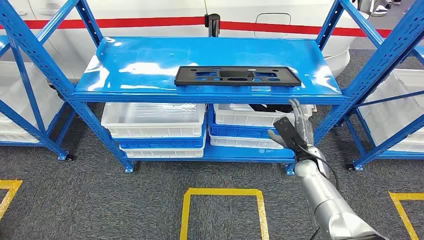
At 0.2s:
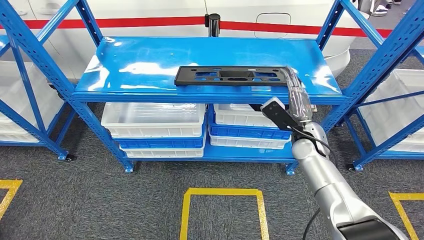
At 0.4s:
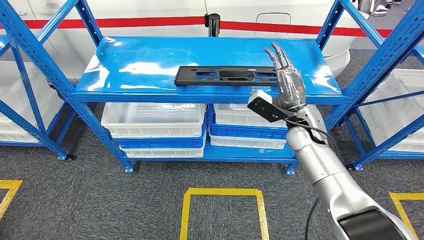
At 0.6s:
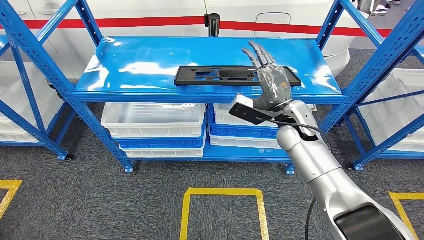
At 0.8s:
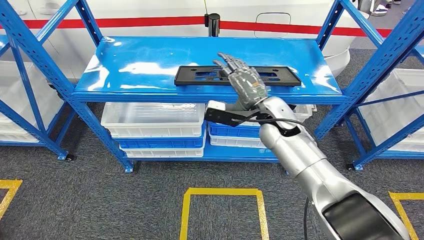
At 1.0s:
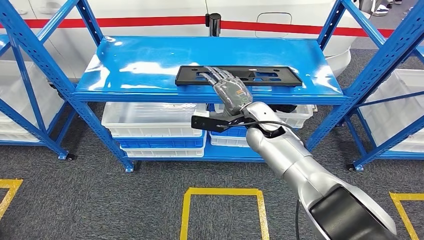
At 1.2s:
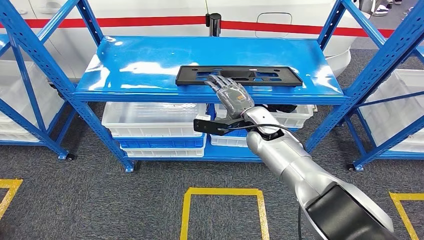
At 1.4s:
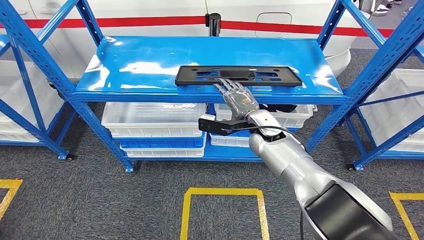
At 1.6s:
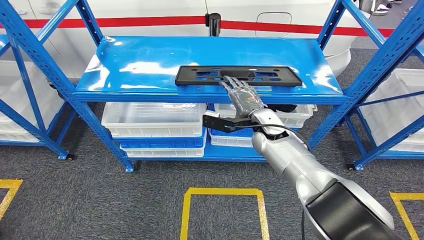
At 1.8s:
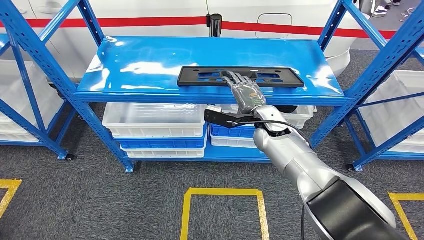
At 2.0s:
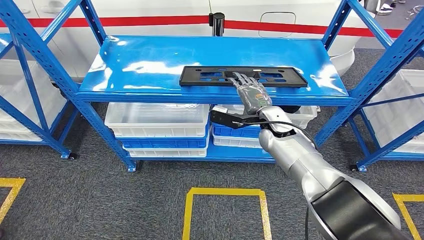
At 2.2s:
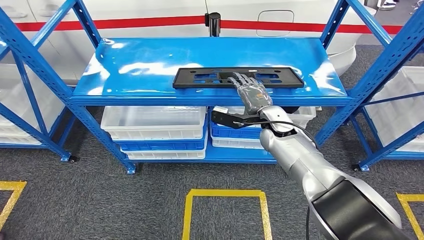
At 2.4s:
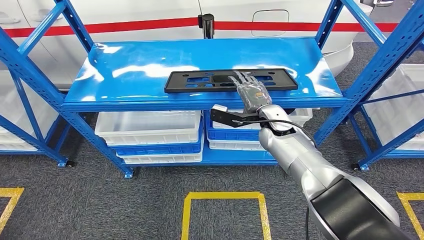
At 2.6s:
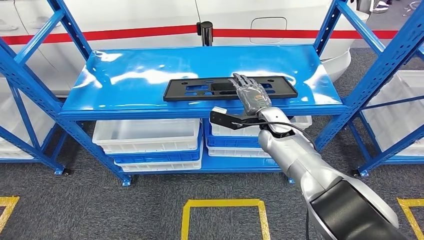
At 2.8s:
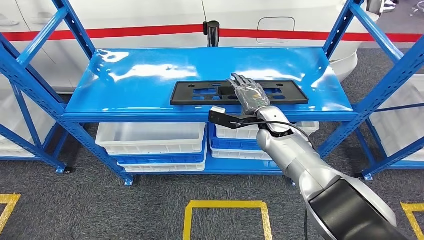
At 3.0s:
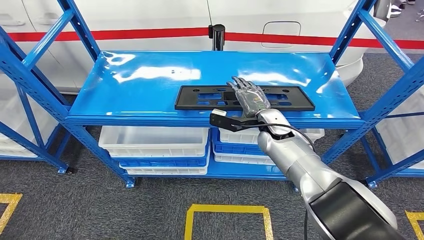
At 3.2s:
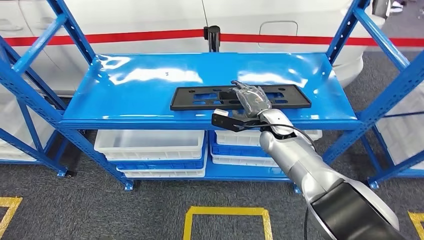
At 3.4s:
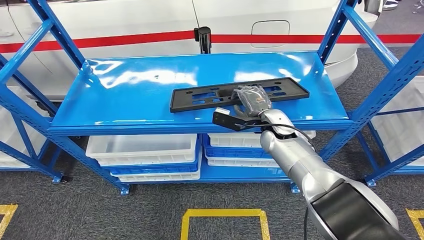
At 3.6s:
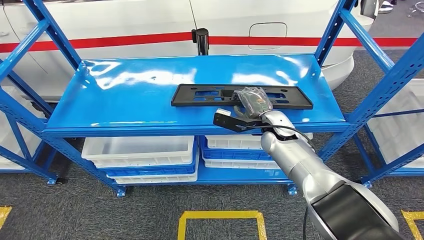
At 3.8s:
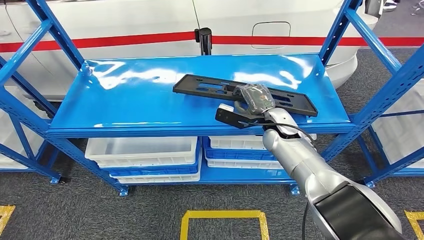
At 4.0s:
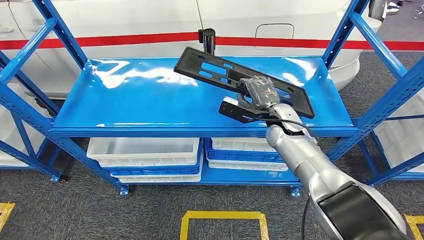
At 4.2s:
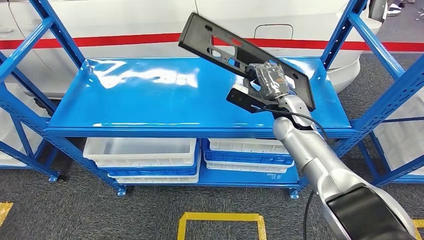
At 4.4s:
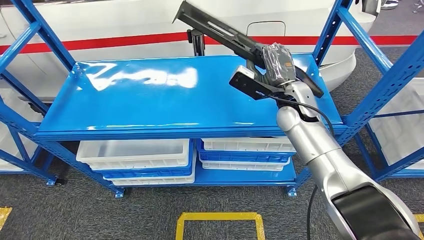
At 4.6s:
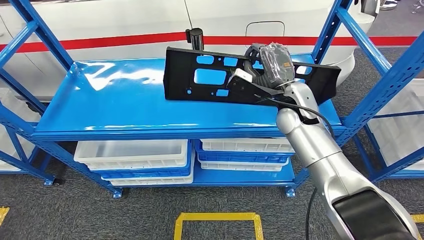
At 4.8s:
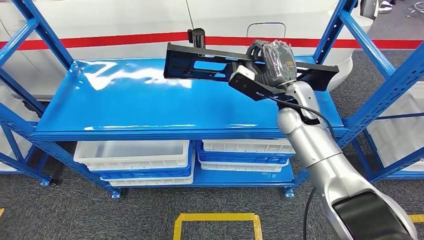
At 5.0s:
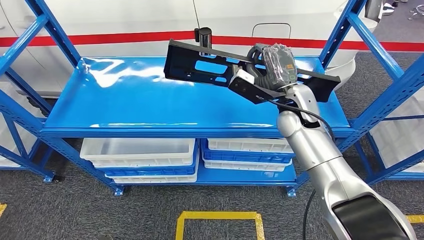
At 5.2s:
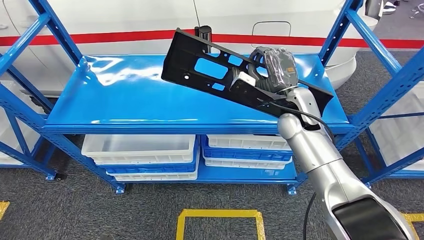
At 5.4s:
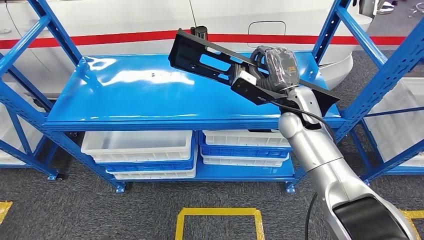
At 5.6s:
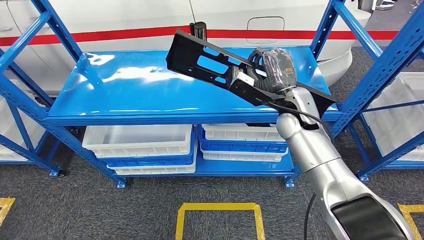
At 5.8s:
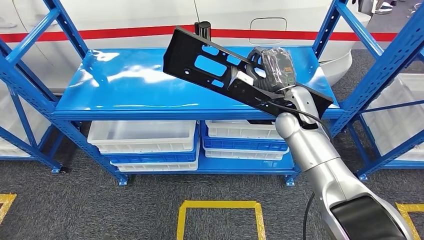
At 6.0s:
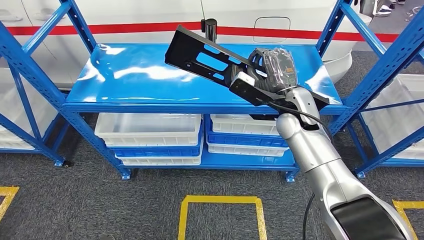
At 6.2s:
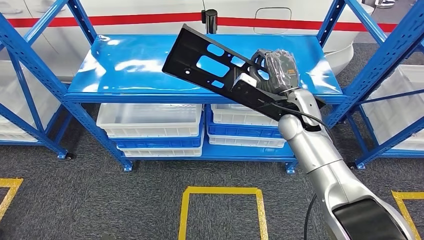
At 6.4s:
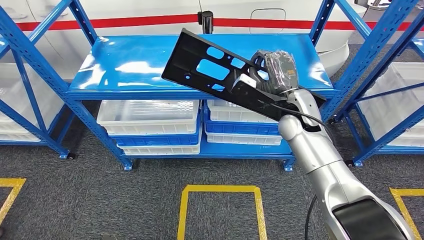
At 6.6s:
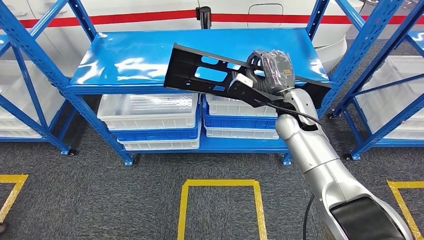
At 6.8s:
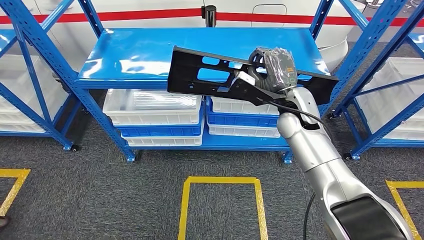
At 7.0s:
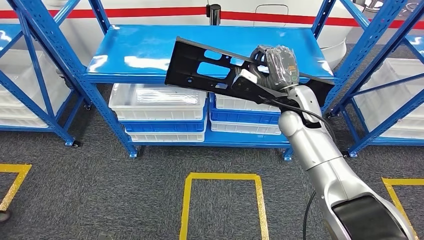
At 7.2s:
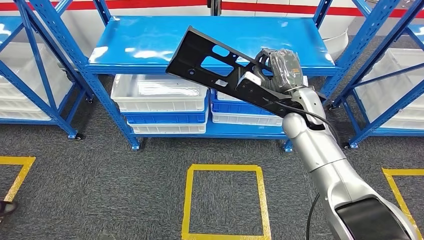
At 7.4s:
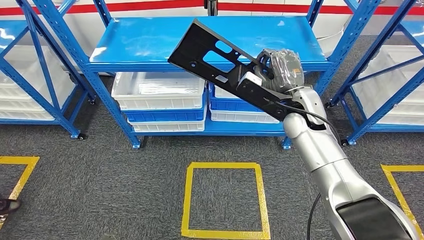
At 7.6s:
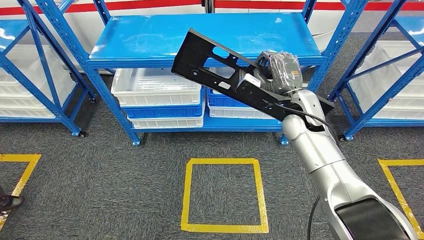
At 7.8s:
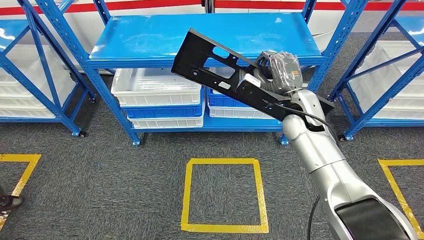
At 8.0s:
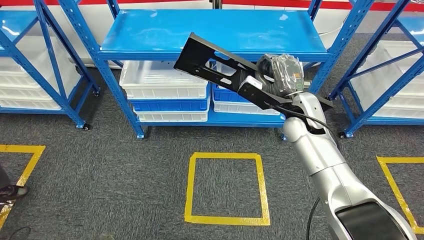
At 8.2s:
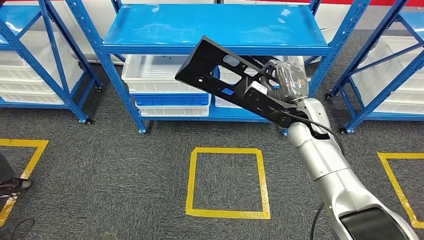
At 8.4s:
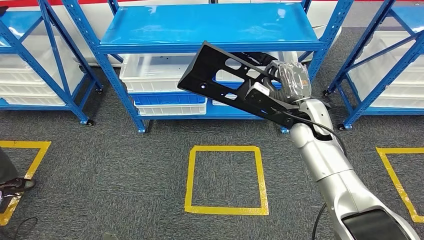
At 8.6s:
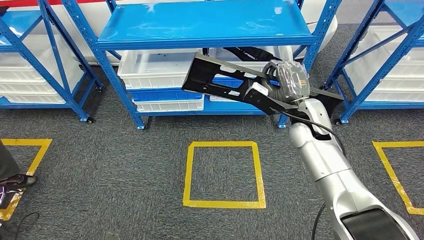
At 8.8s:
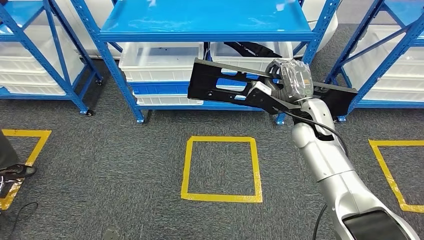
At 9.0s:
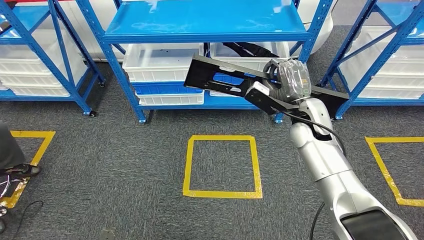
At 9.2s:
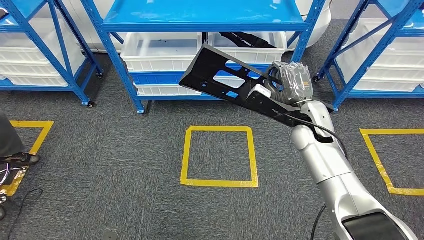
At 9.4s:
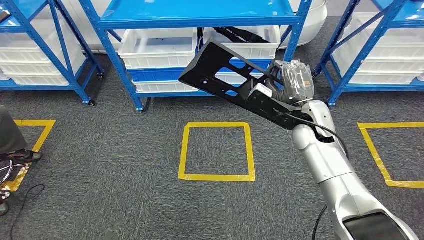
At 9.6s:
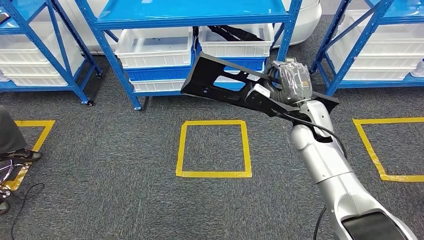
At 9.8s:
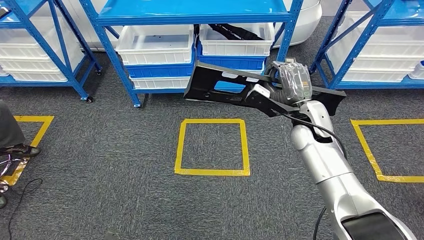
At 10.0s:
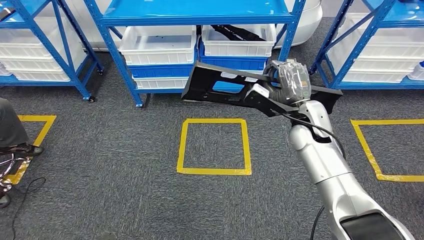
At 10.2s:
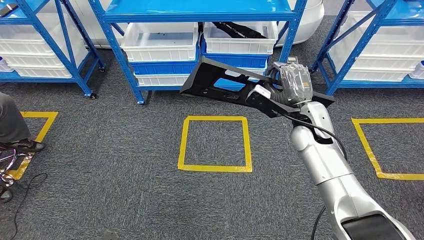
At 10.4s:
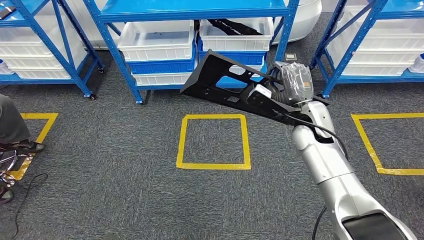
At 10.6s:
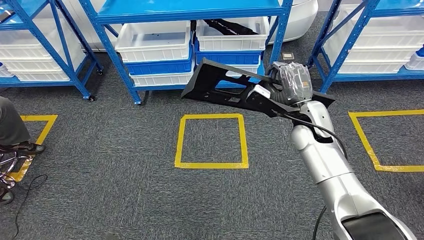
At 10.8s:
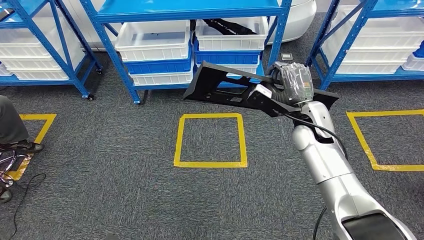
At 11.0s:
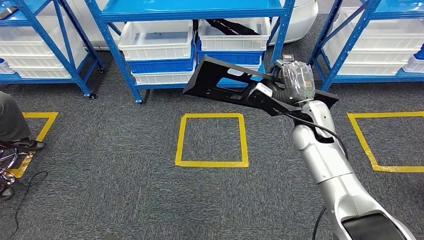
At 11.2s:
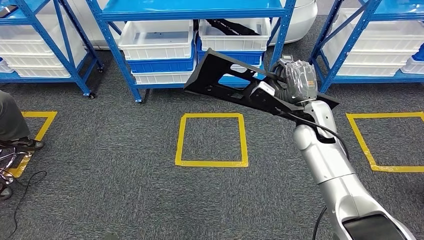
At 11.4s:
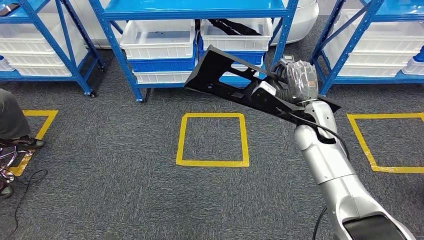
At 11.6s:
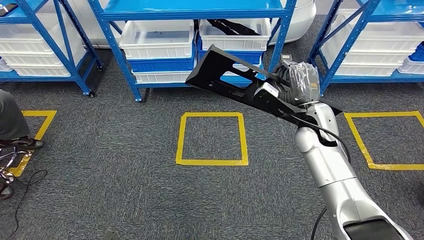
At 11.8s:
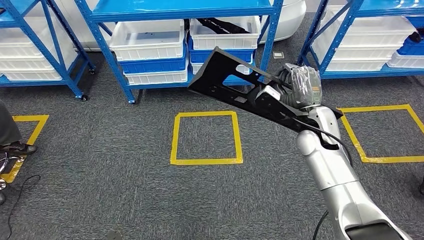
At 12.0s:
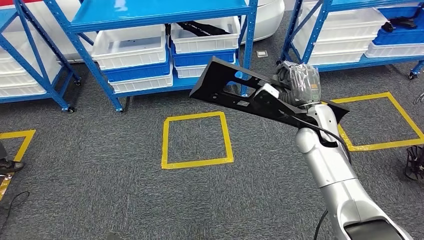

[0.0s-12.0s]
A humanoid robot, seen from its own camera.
Step, 0.0s to 4.8s: Pick up the large material from the shelf.

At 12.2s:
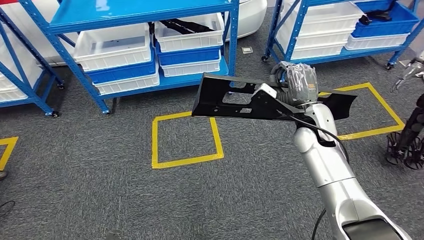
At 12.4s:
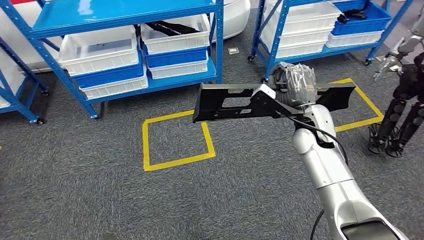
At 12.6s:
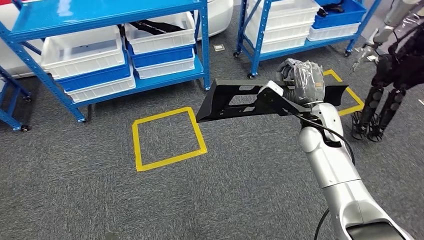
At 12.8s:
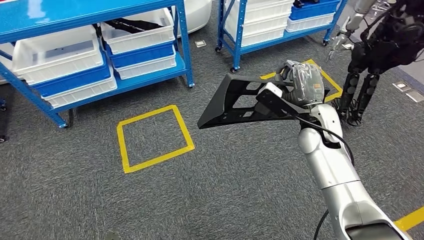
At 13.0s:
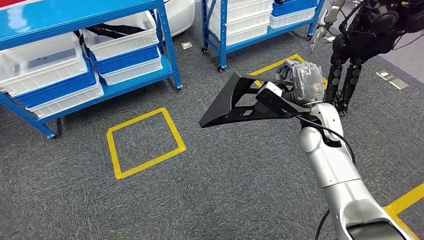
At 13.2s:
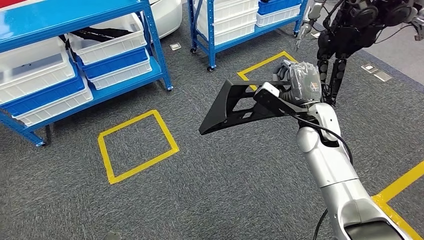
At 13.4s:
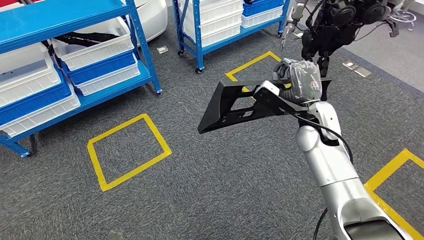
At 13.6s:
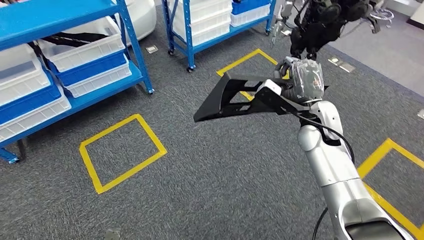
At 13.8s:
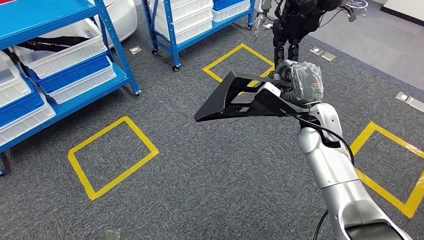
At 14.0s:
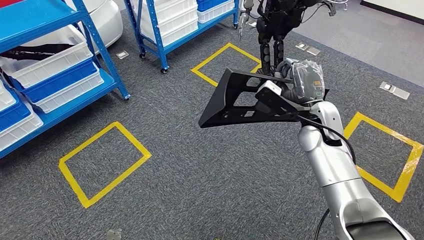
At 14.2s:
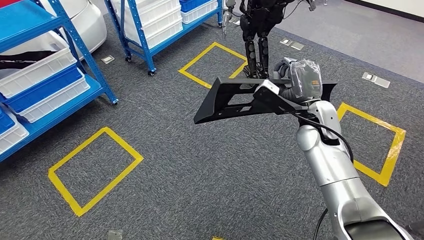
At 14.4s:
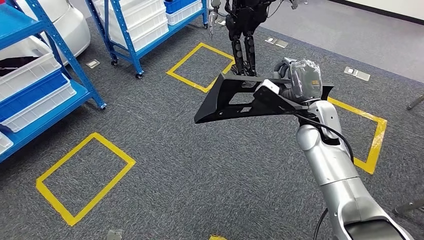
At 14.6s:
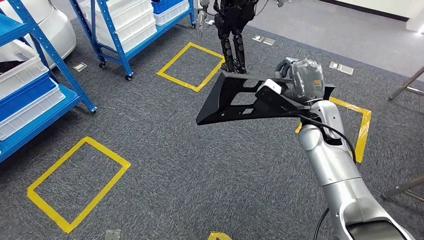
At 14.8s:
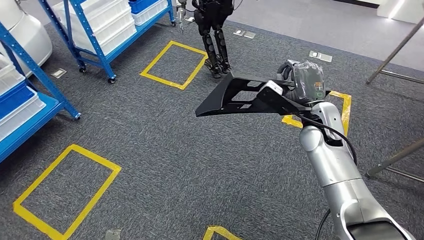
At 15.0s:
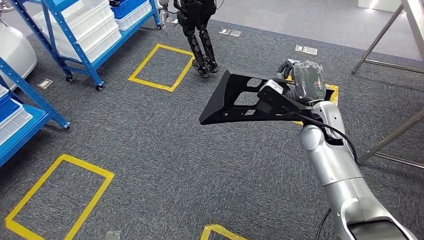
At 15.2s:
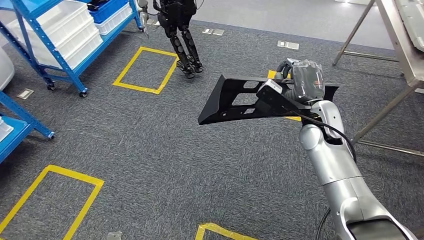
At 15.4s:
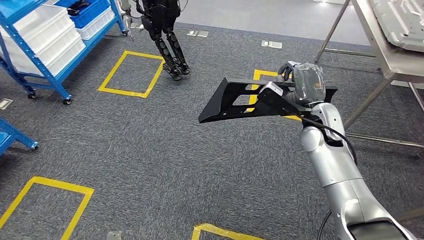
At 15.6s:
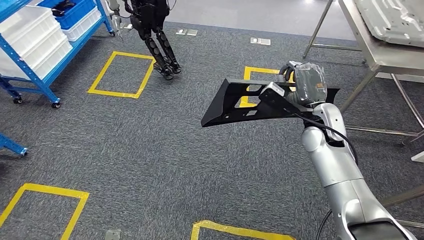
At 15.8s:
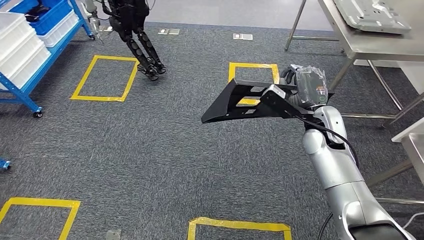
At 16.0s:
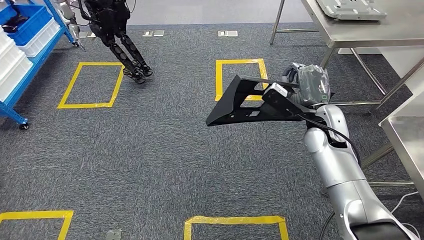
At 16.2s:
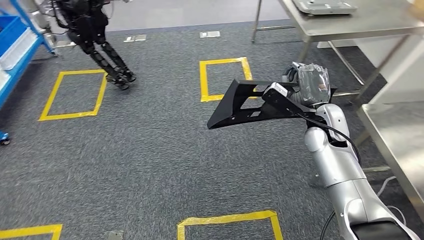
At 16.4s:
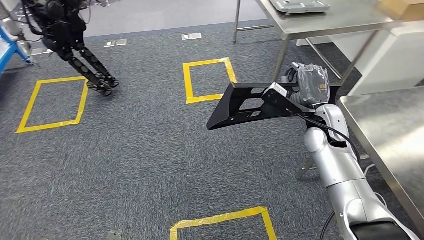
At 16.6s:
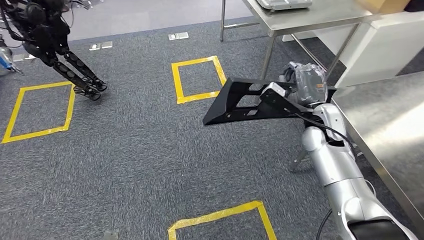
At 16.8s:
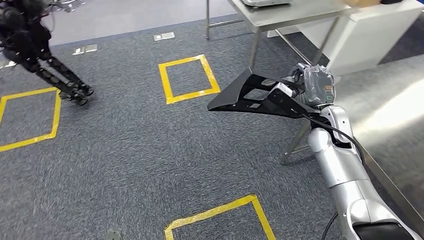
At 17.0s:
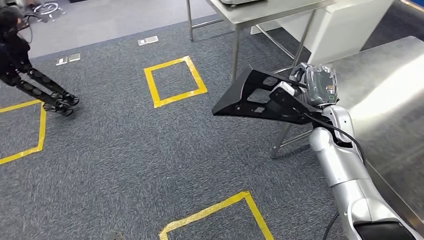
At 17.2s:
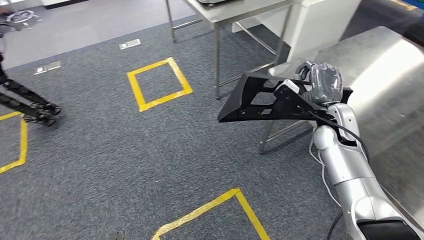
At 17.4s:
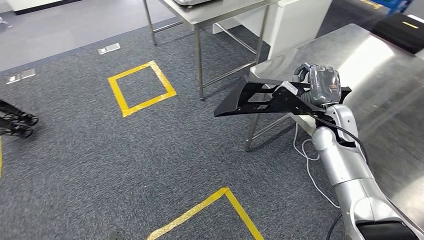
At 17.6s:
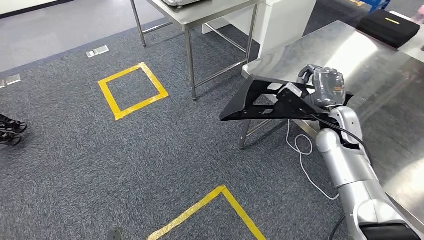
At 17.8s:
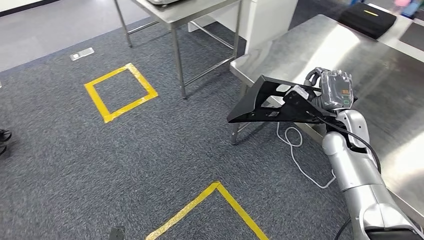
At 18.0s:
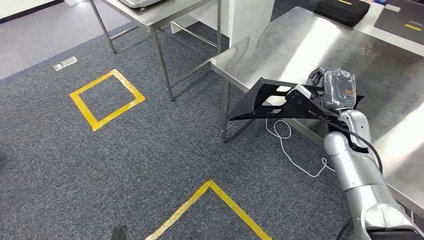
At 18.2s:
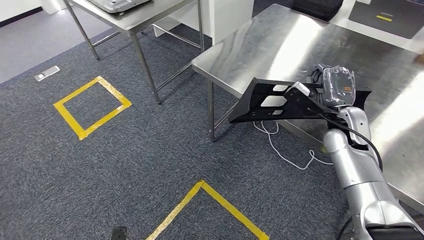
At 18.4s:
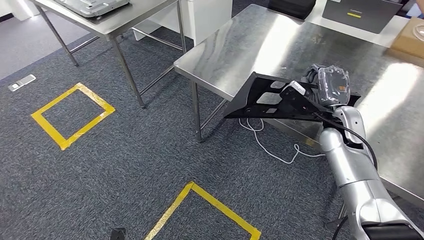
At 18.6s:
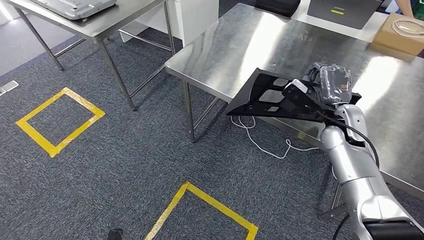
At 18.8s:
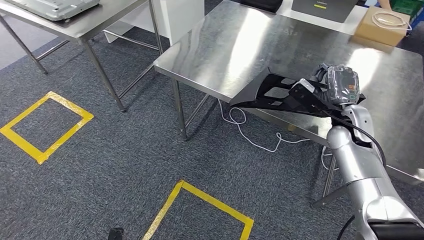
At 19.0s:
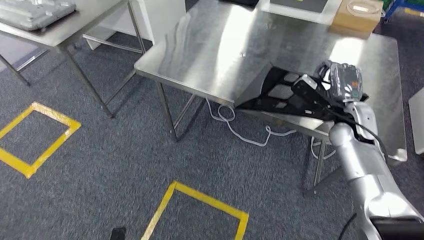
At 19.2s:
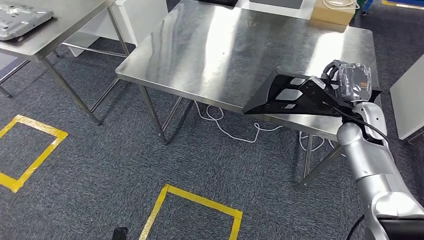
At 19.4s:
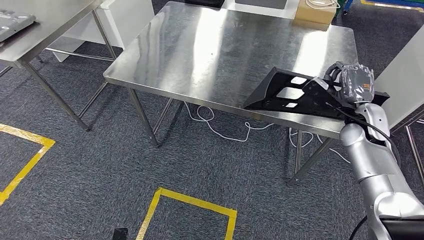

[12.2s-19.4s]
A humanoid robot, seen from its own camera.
Step, 12.2s to 17.4s: Move the large material to the workbench.
